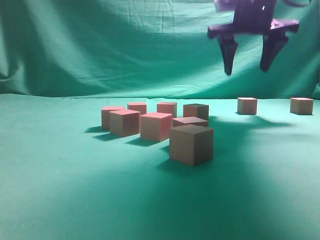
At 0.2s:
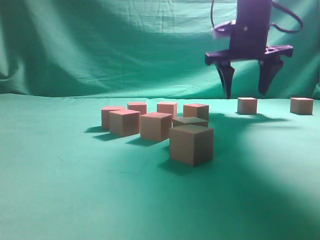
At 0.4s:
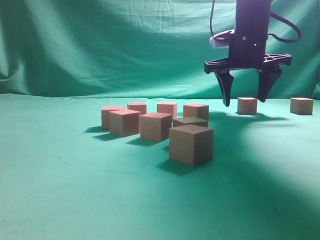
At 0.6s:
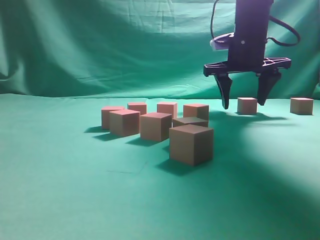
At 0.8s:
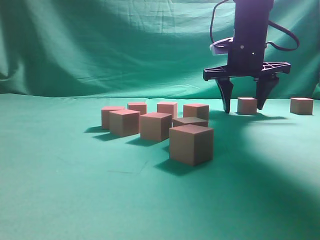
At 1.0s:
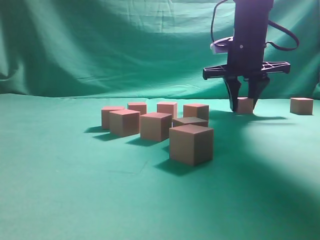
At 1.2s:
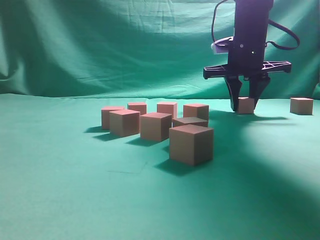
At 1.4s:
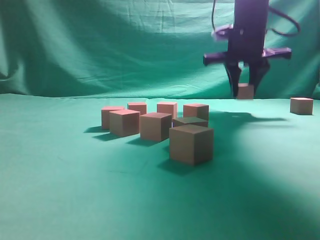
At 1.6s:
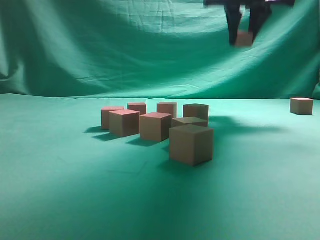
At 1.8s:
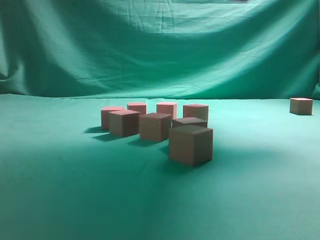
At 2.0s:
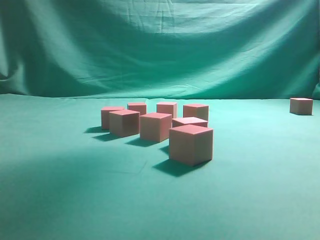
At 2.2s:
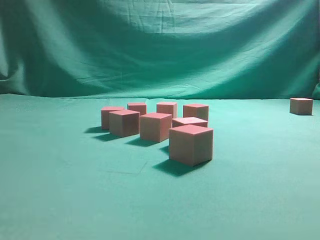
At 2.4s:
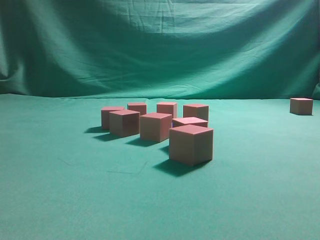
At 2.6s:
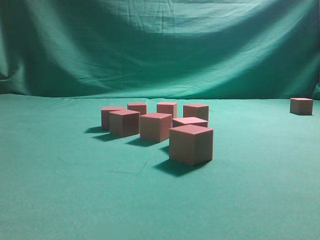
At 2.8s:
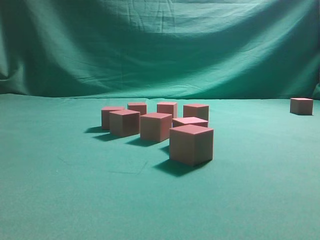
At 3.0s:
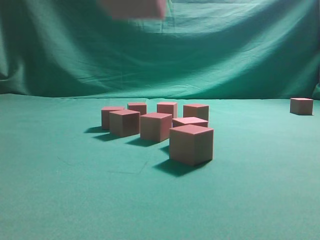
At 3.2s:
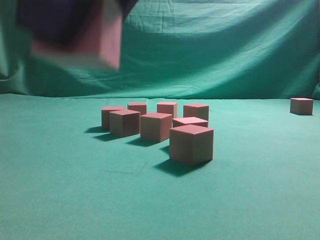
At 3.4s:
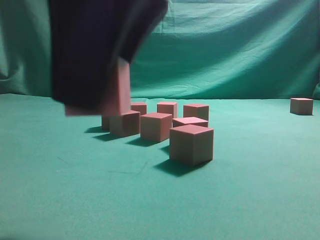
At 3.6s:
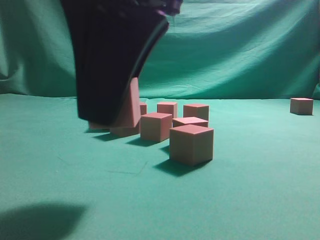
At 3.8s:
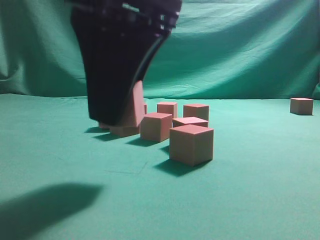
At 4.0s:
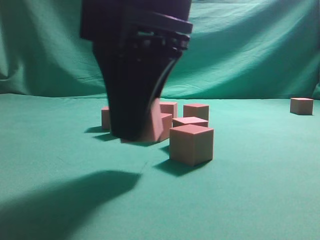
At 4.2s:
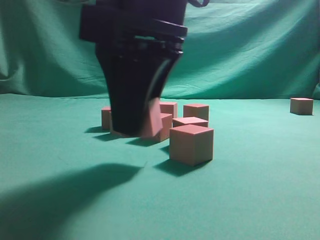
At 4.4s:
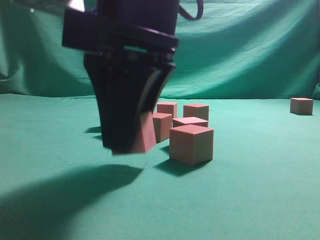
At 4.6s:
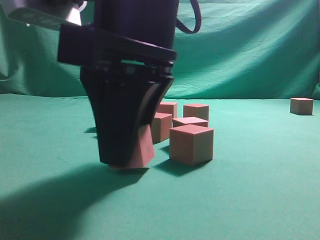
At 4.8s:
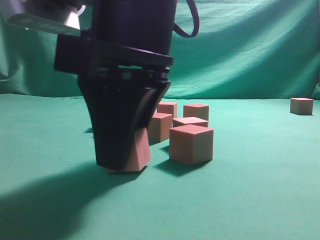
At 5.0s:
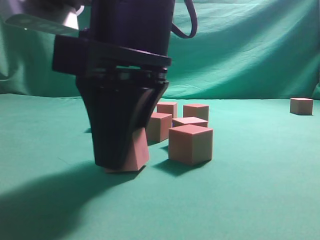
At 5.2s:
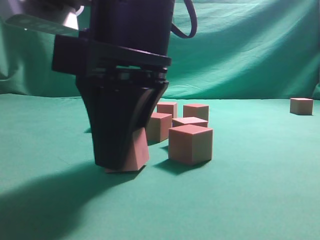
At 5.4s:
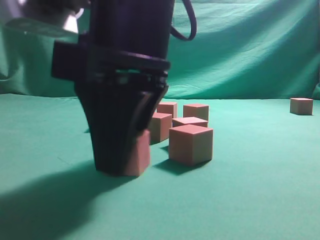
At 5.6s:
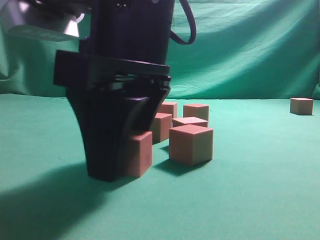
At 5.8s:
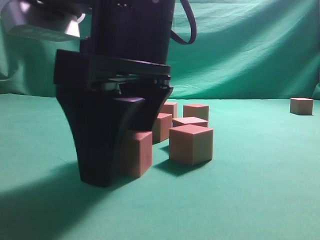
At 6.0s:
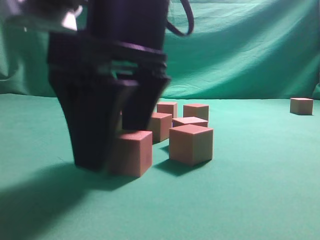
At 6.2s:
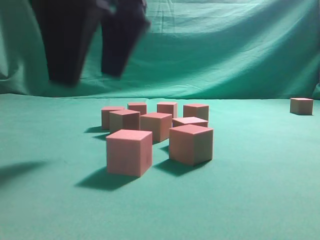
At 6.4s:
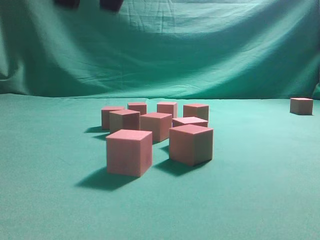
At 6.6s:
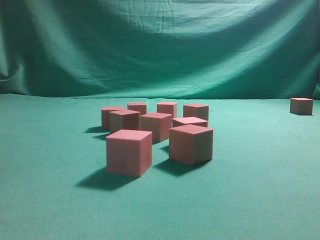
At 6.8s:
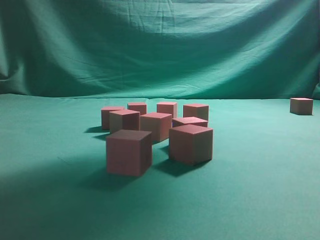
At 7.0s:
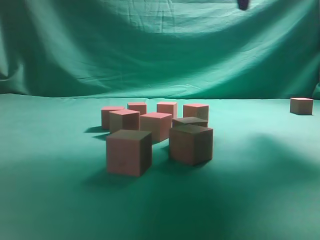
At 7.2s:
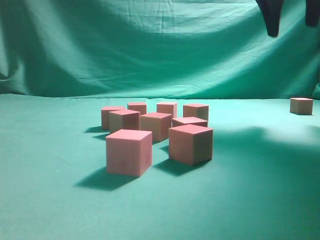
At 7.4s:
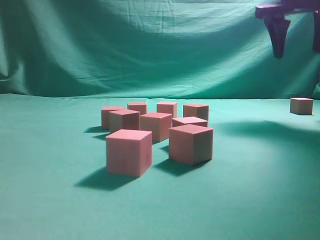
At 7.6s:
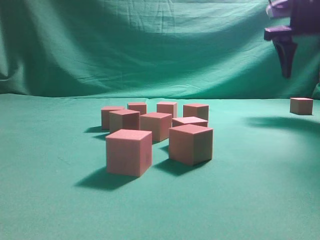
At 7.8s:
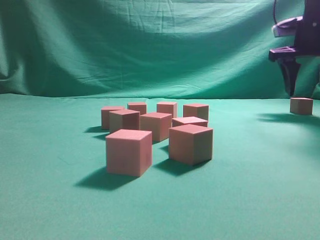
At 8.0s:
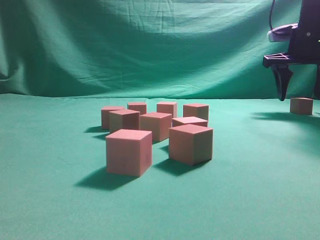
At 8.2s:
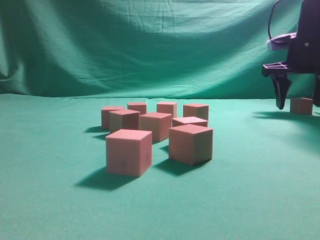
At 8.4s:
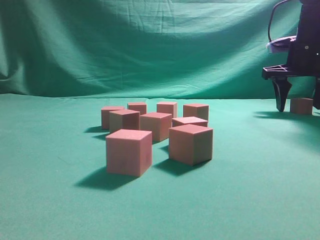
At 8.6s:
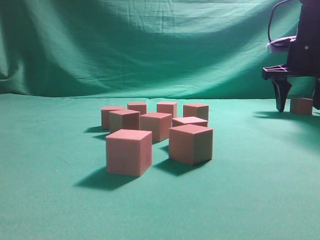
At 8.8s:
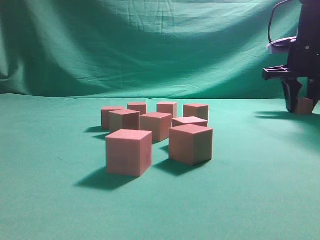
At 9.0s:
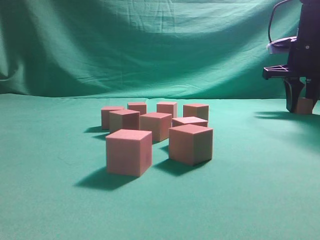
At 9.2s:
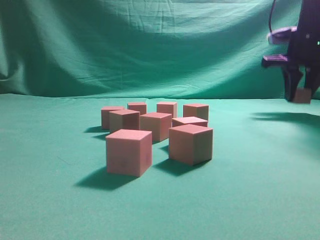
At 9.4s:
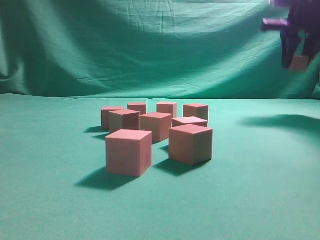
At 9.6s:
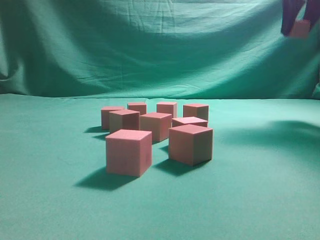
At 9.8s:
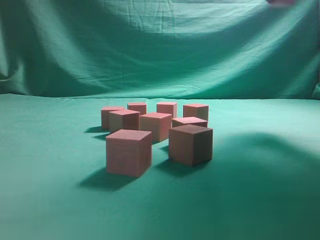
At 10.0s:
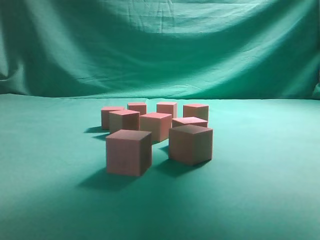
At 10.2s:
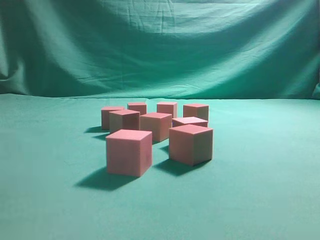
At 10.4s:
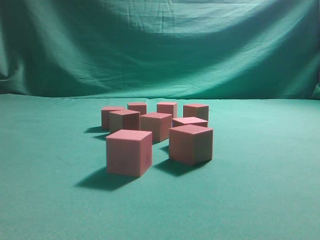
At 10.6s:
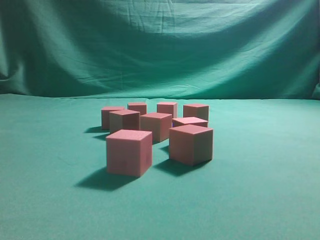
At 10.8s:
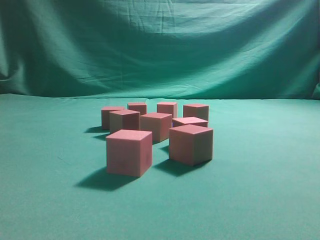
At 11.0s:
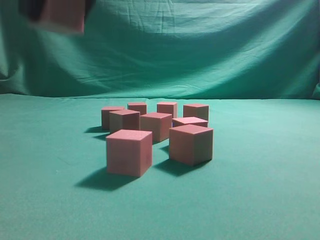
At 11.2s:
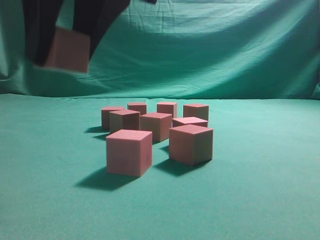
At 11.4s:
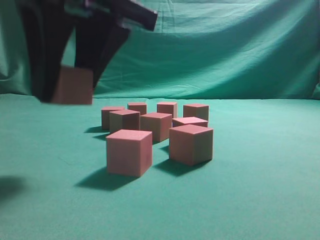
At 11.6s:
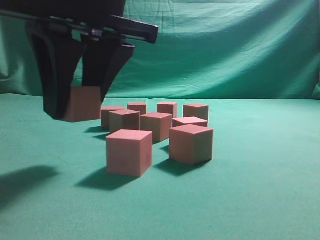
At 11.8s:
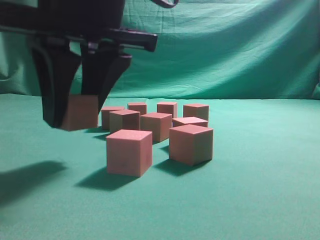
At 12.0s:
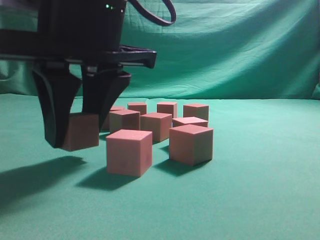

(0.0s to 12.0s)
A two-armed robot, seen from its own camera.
Task of the whole recording: pick up the multiple cubes in two columns one by one and place them in another position on the table.
Step, 0.0s - 1.2s: Pick up the block on the table.
Step, 1.4s - 6.2s: Place the block at the correct position to assemble the letter S.
Step, 6.4s - 9.0s: Pick up the block on the table.
0.0s - 1.6s: The right gripper travels downward and back again, approximately 5 cm each way, and closes.
1.6s - 3.0s: The right gripper goes approximately 35 cm backward and to the left.
3.0s - 4.4s: The right gripper shifts about 10 cm downward and forward.
4.4s - 6.0s: The right gripper opens up.
6.0s - 7.6s: The right gripper travels to the right and forward by approximately 35 cm.
7.6s - 9.0s: The right gripper moves downward, roughly 5 cm, and closes up.
9.0s - 10.4s: The right gripper is displaced to the left, upward and backward by roughly 40 cm.
10.4s - 12.0s: The right gripper goes approximately 20 cm downward and to the left.

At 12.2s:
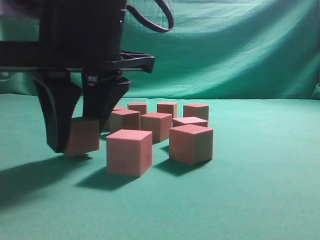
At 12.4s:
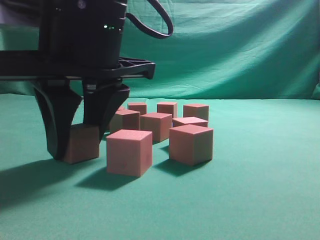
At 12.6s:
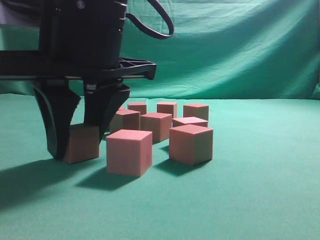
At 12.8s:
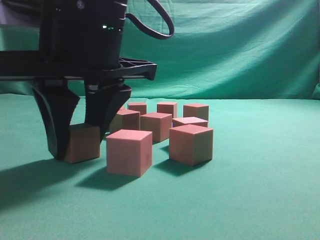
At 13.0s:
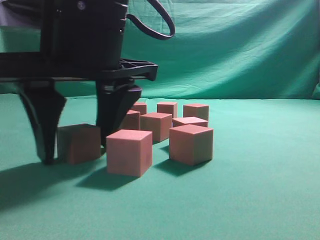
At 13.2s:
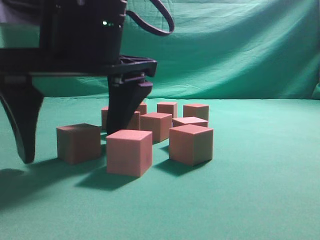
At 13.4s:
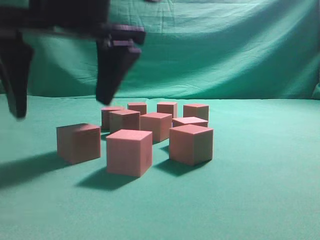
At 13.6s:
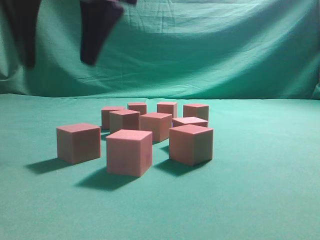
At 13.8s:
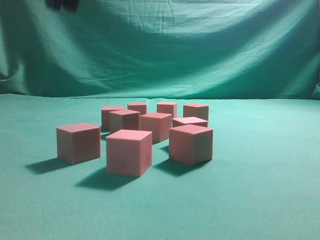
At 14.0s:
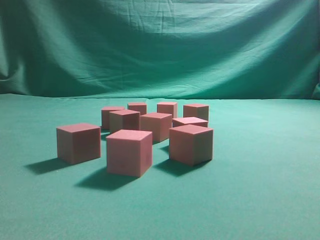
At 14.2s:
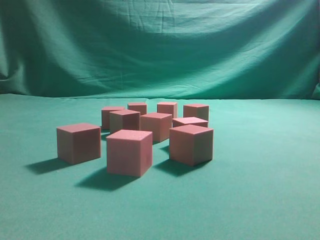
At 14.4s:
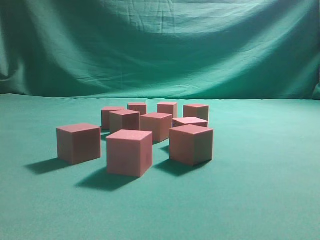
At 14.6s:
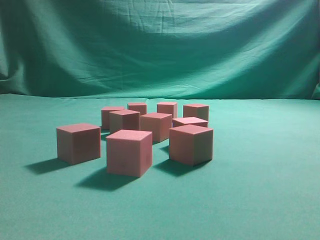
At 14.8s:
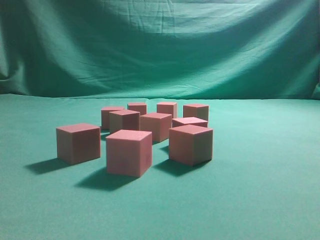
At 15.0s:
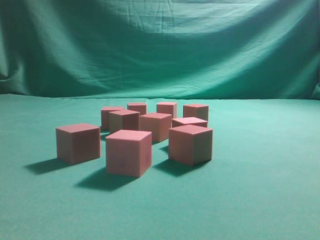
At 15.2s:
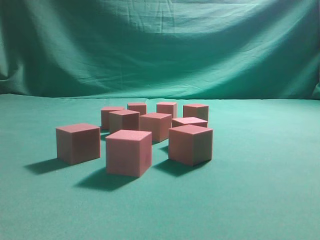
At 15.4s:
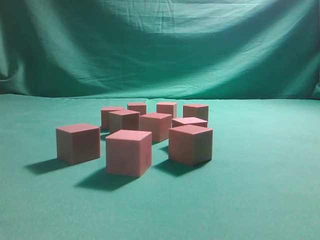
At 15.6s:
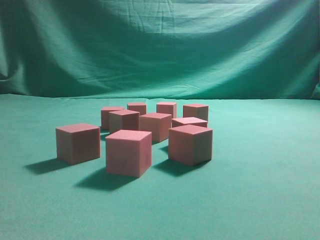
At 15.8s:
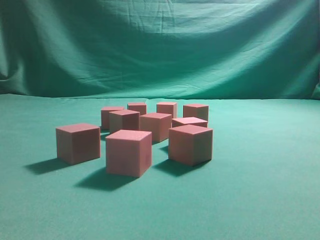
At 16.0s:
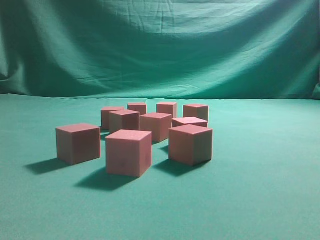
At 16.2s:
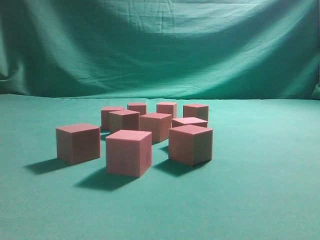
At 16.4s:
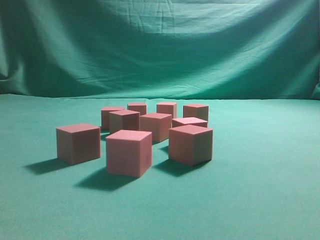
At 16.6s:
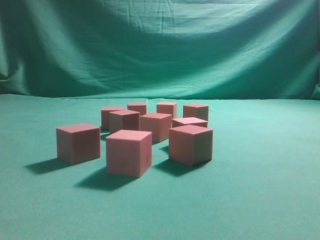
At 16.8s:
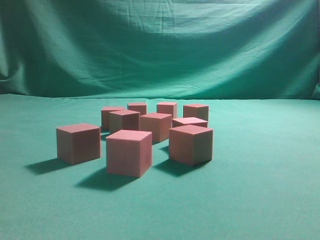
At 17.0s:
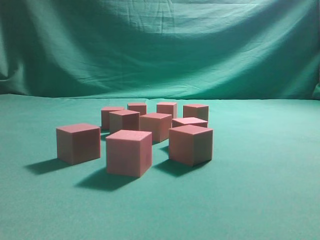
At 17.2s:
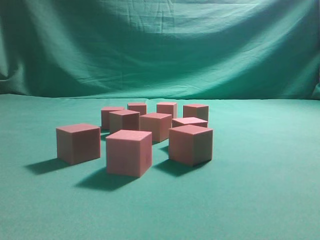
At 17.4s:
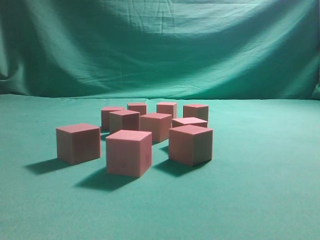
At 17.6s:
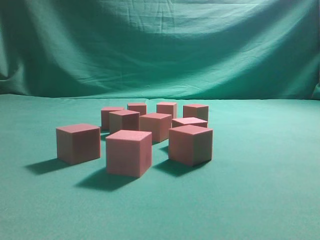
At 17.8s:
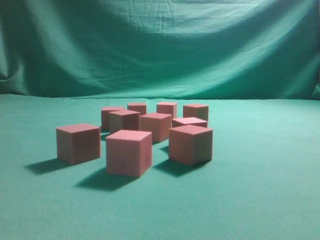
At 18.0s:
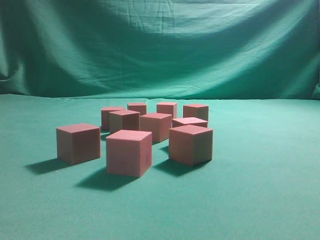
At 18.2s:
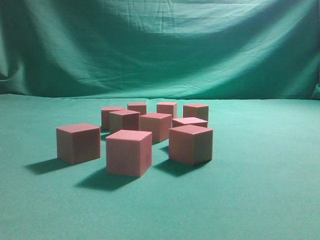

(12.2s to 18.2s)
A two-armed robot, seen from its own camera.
Task of the whole recording: pick up the multiple cubes in two columns one by one and place them in another position on the table.
12.2s - 13.8s: The right gripper shifts approximately 15 cm upward, and opens, then closes once more.
